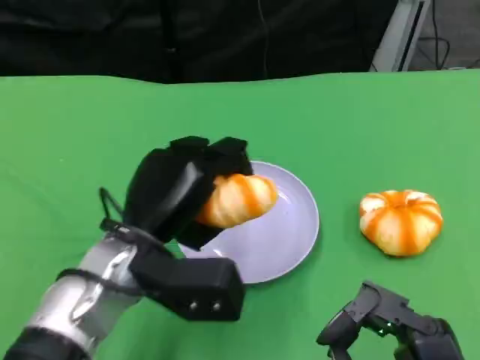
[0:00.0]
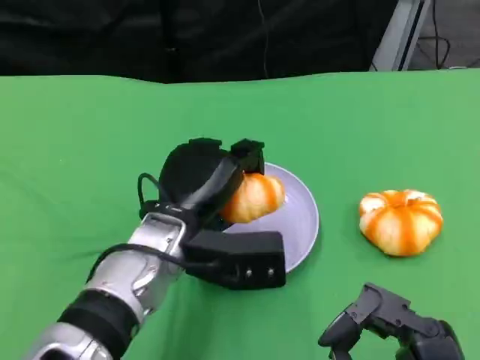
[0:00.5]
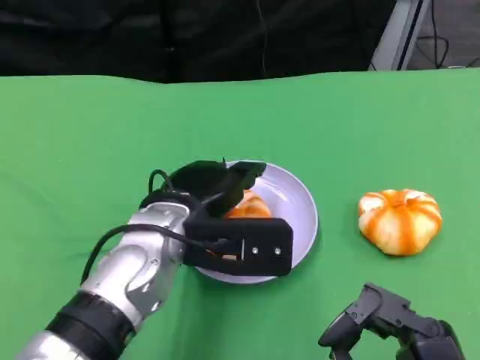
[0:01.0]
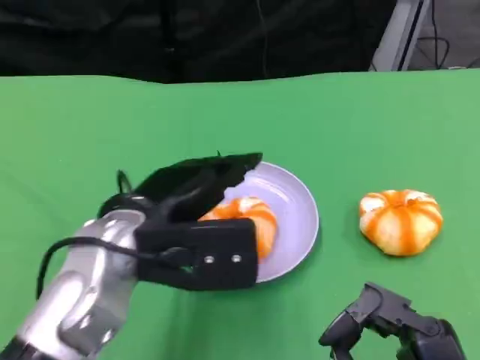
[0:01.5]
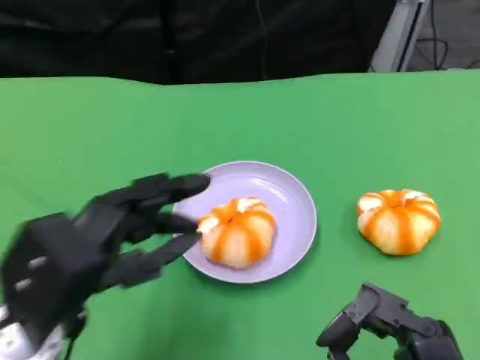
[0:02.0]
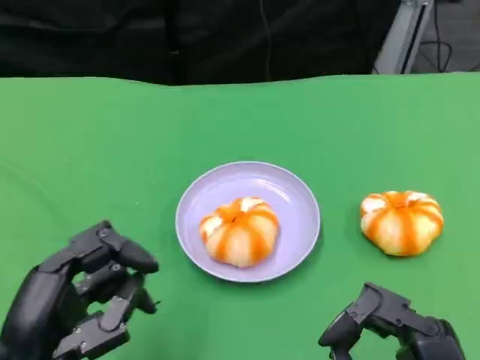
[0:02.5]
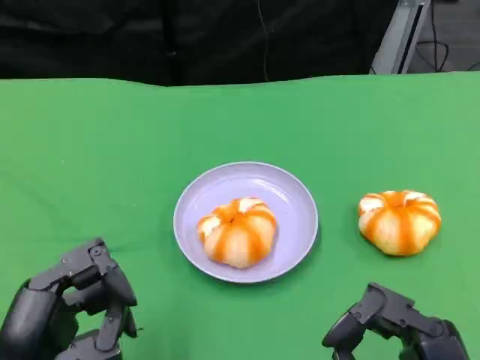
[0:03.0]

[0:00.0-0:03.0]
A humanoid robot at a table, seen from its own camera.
Task of the whole recording: Grasp the bread from the table and place it into the plate.
0:00.0 to 0:01.5: The left hand moves upward, approximately 5 cm.
0:01.5 to 0:03.0: The left hand goes roughly 15 cm backward, to the left and downward.

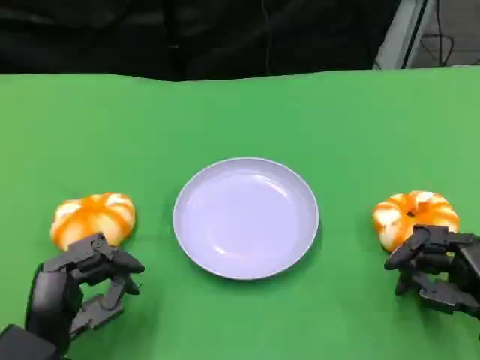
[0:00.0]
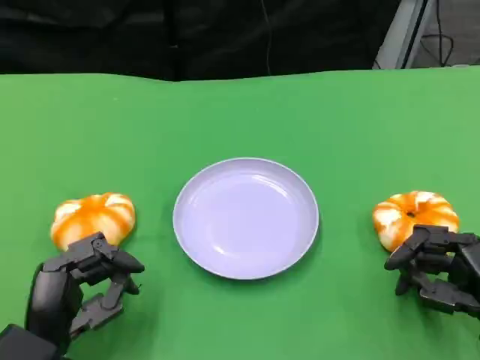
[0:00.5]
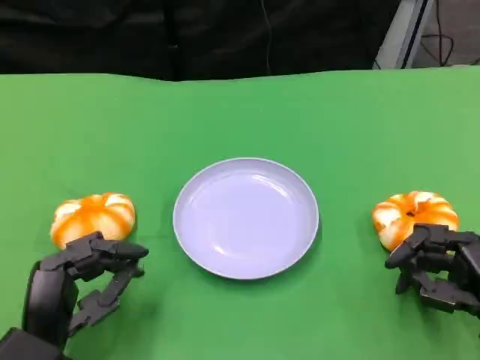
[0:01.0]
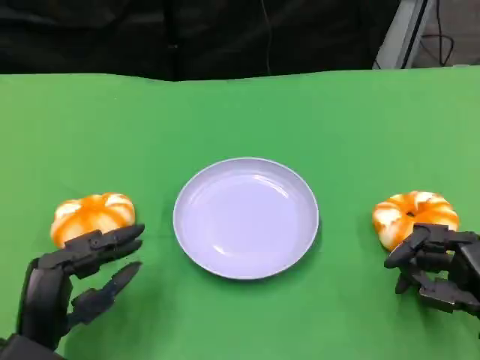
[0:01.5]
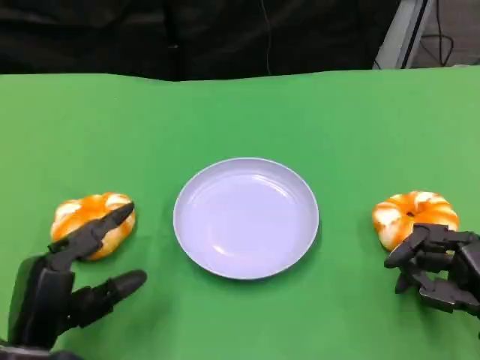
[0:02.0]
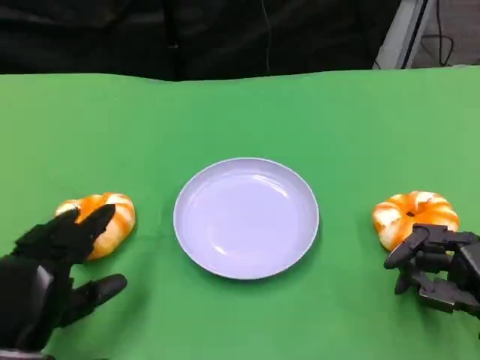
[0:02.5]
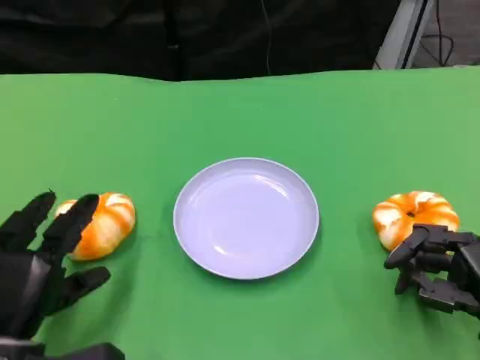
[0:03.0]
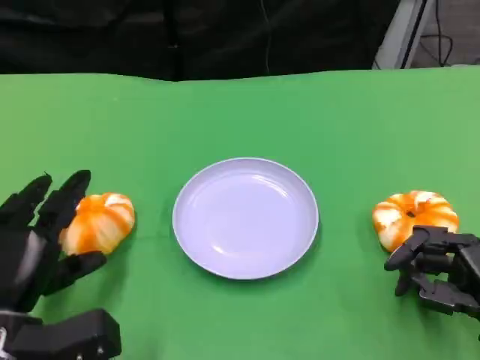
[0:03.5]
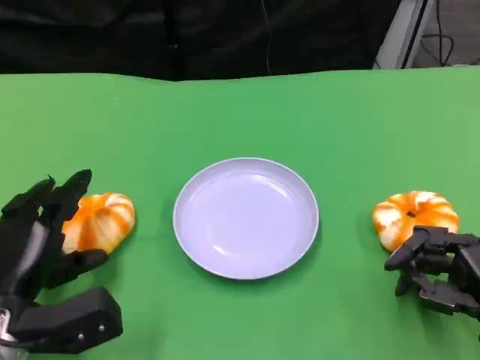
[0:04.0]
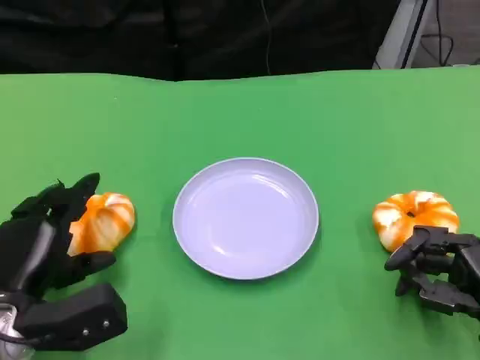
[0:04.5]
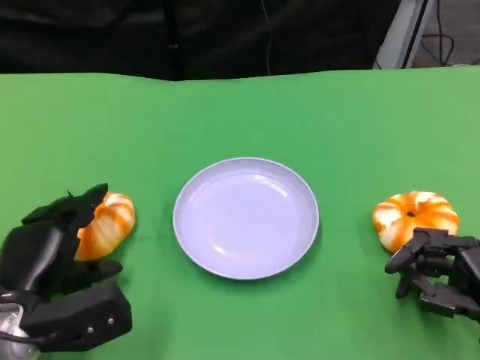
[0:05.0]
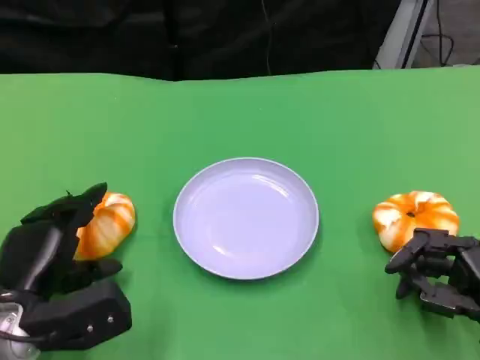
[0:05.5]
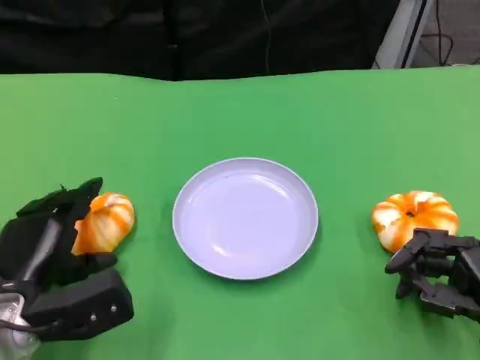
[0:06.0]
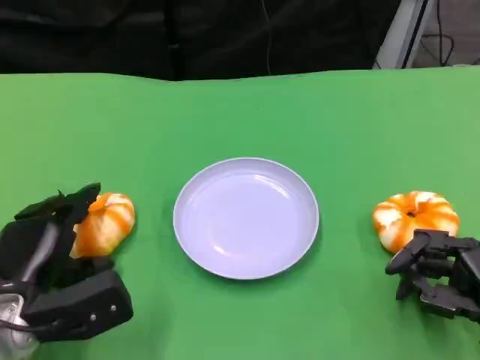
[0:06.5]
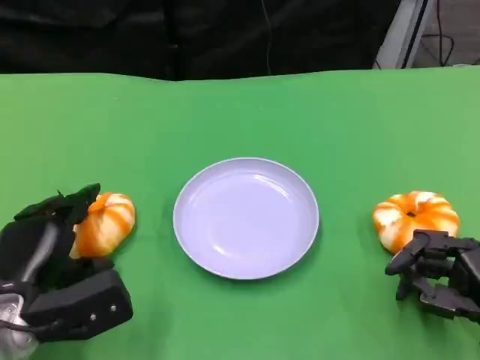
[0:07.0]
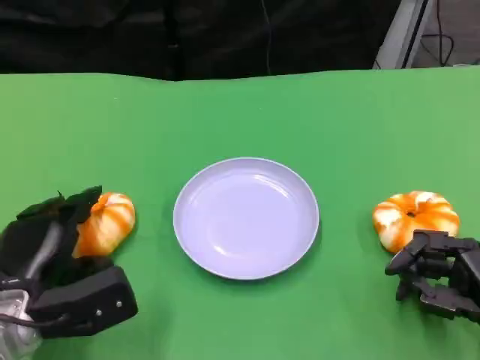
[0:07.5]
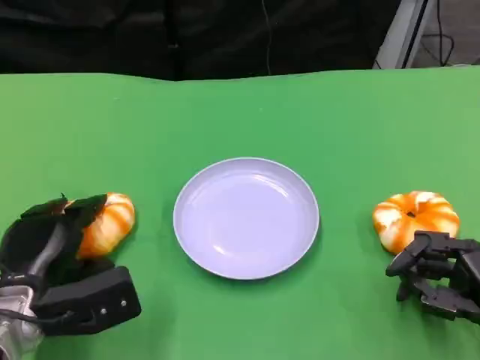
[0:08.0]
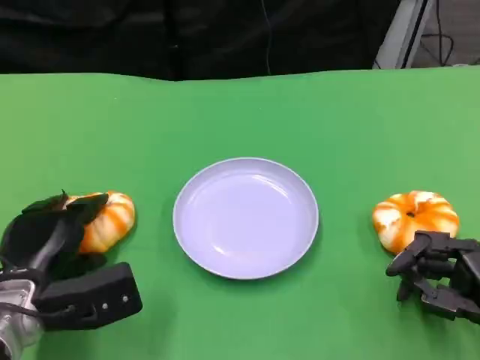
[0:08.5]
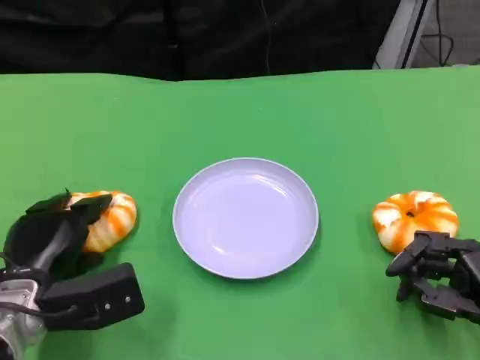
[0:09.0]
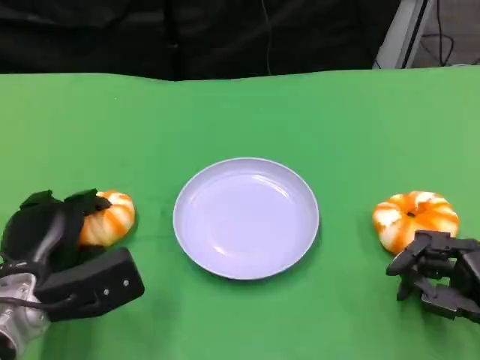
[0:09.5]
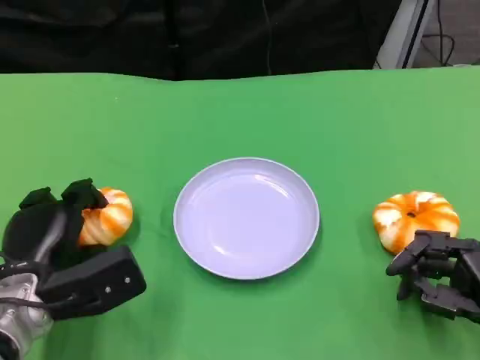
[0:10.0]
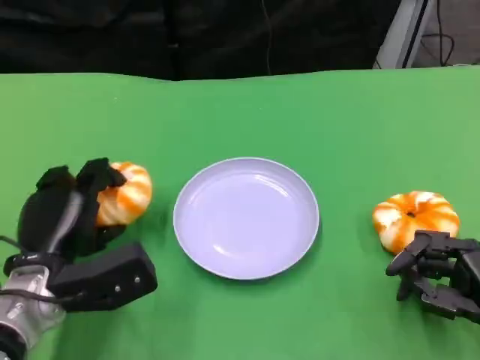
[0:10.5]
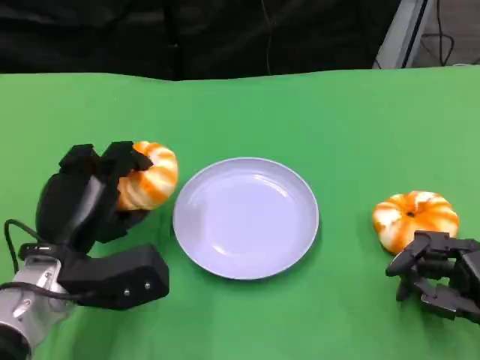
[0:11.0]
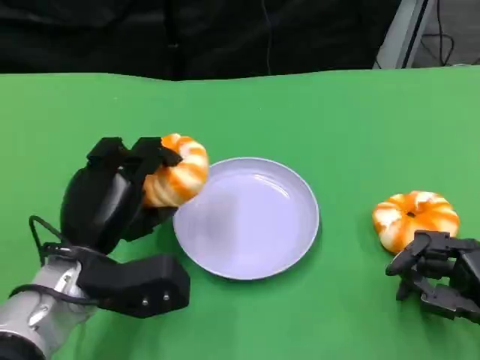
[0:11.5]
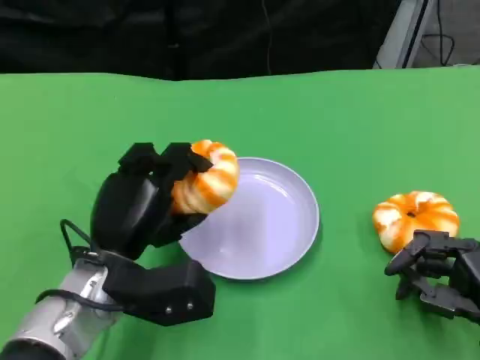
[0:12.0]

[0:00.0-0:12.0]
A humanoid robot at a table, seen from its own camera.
Task of the whole recording: Grasp the bread from the table and place it into the plate.
0:02.0 to 0:04.0: The left hand shifts by about 5 cm.
0:04.0 to 0:10.0: The hands move only a little.
0:10.0 to 0:12.0: The left hand shifts some 10 cm to the right.

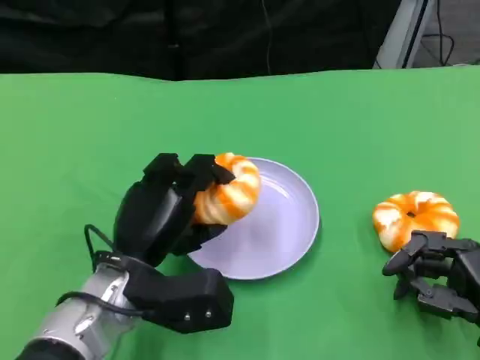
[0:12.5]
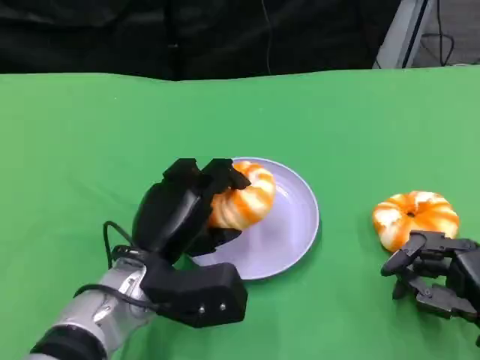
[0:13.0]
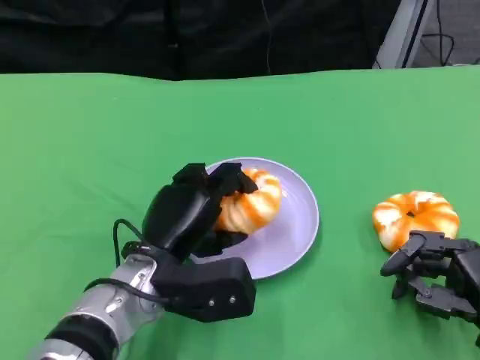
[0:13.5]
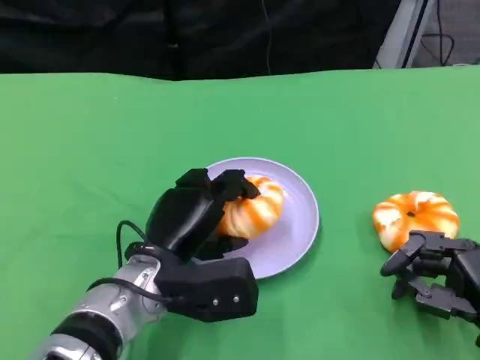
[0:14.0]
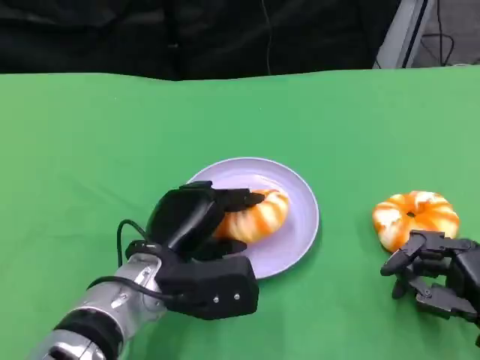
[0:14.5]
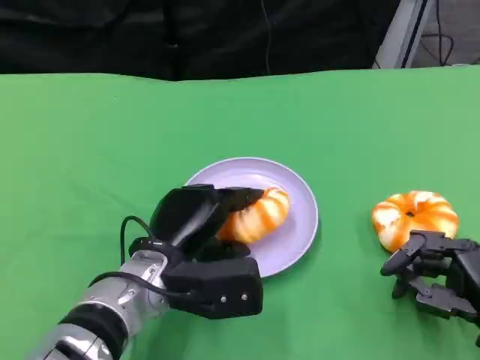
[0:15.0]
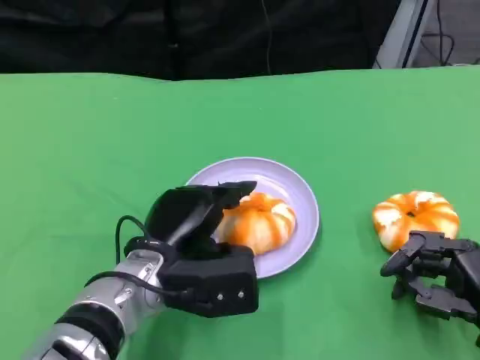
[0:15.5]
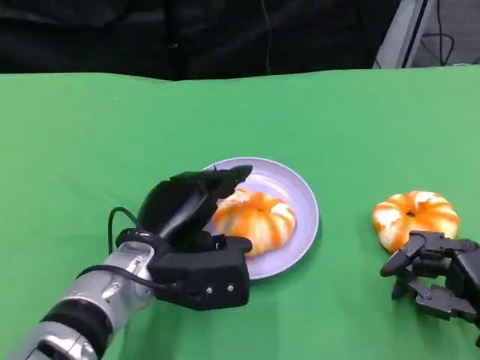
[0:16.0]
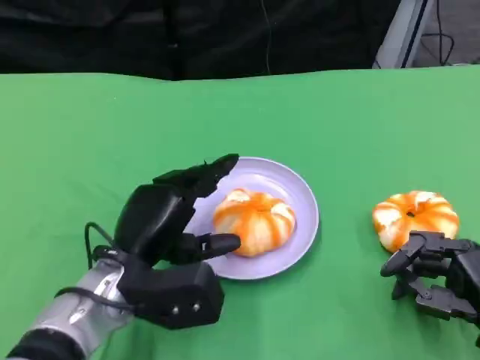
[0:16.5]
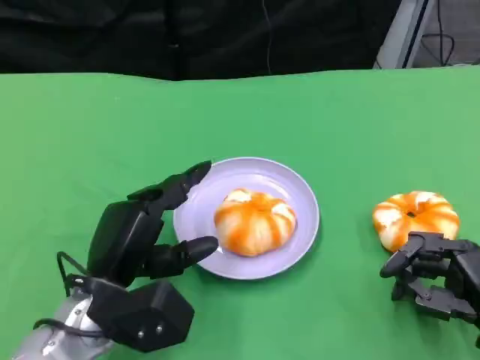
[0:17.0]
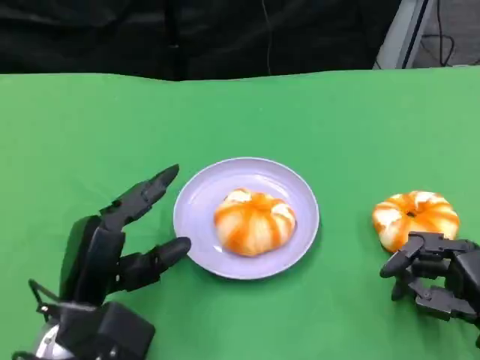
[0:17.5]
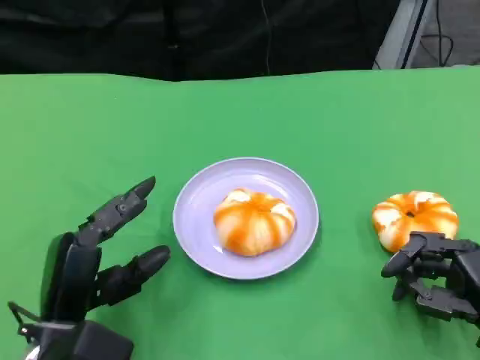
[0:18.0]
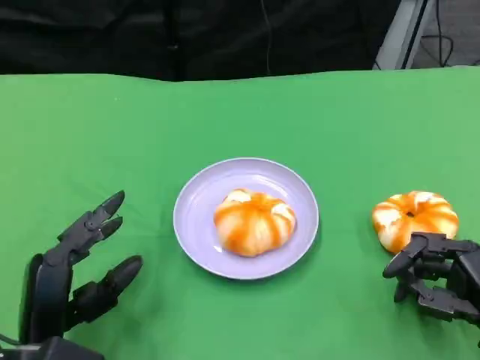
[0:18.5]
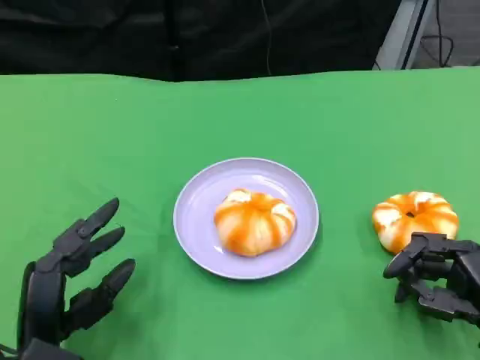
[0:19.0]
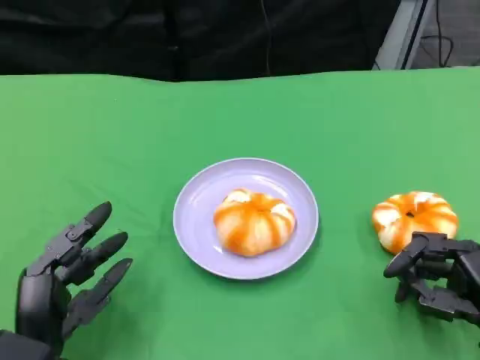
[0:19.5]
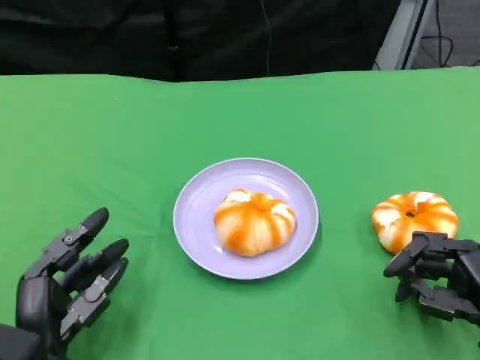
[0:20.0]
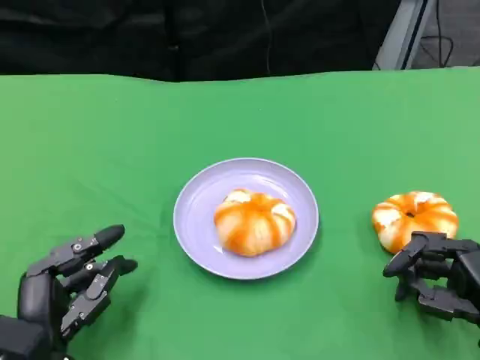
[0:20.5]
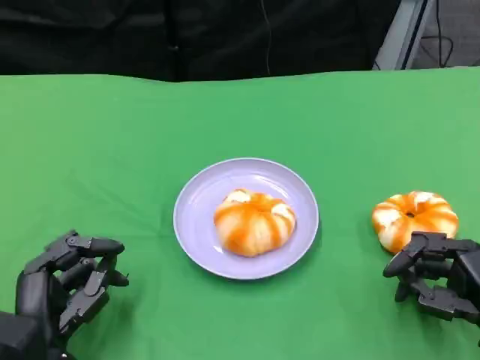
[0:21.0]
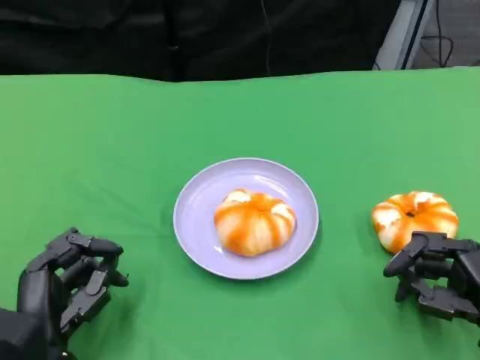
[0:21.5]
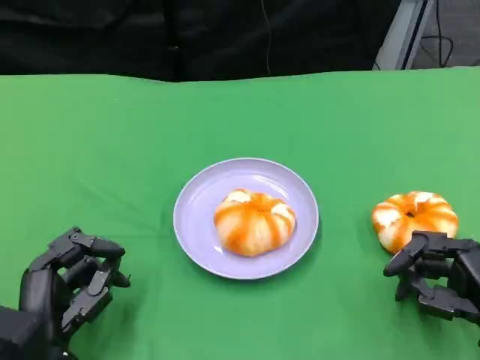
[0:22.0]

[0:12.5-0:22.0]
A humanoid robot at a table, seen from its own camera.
Task of the whole recording: Grasp the bread from the table and place it into the plate.
0:12.5 to 0:16.5: The hands move only a little.
0:16.5 to 0:18.0: The left hand goes approximately 10 cm backward and to the left.
0:20.0 to 0:22.0: Both hands stay about where they are.

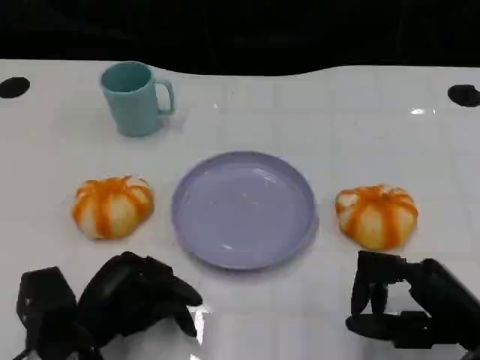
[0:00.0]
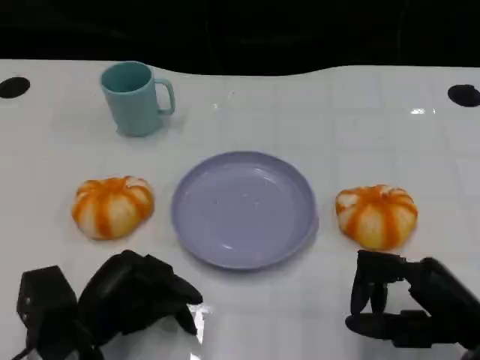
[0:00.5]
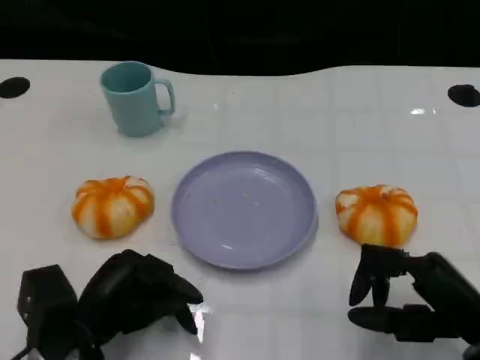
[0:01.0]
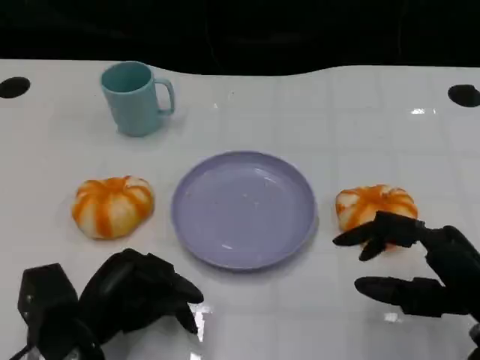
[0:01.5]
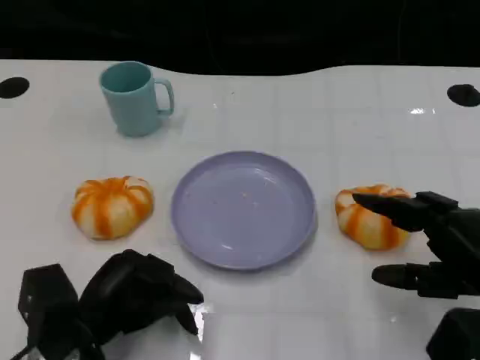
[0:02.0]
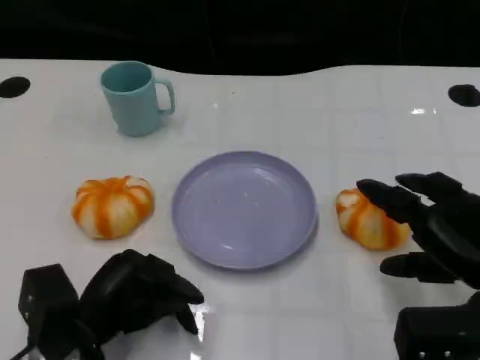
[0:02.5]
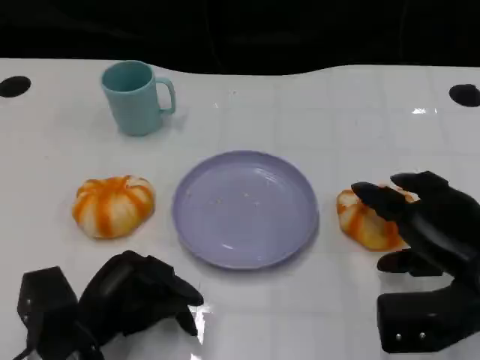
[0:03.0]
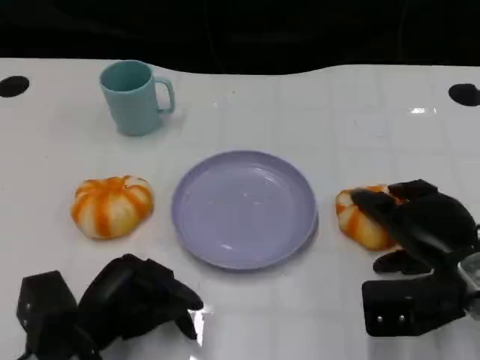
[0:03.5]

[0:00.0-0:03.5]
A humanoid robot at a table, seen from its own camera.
Task of the whole recording: Grasp the bread from the table and place it into the plate.
0:00.0 to 0:02.0: The right hand changes place by some 5 cm.
0:02.0 to 0:03.5: The right hand is displaced forward by roughly 5 cm.
